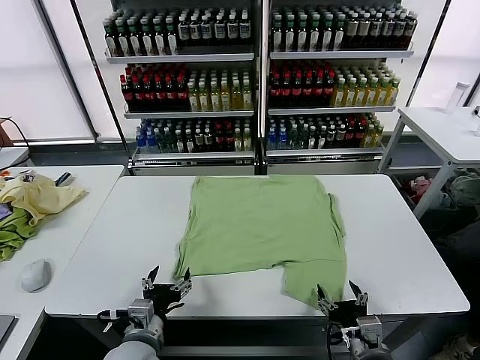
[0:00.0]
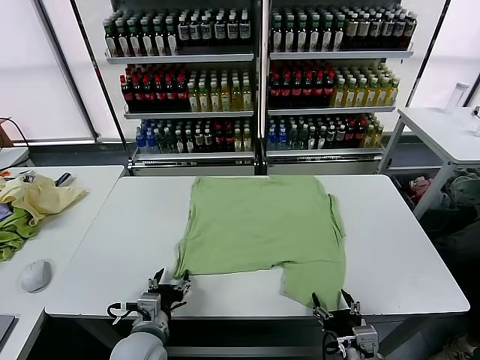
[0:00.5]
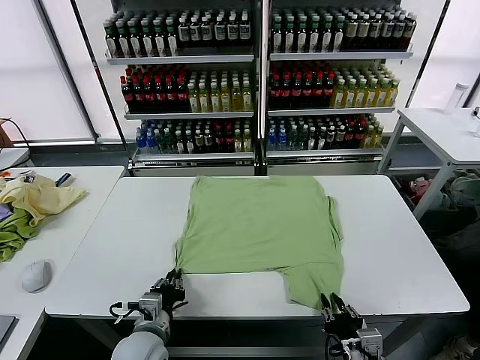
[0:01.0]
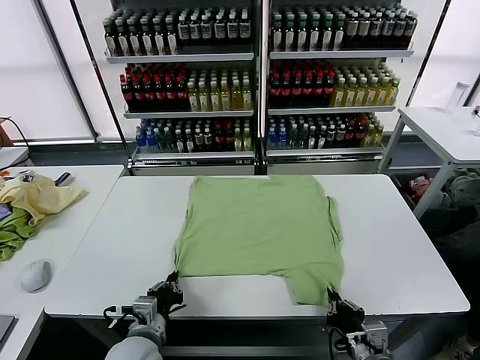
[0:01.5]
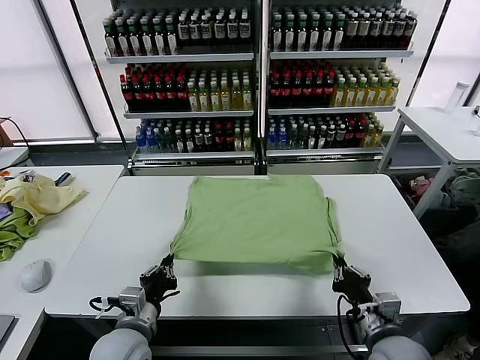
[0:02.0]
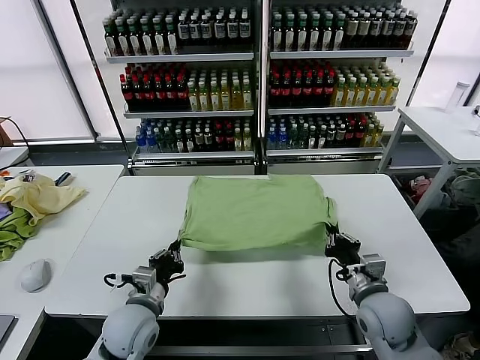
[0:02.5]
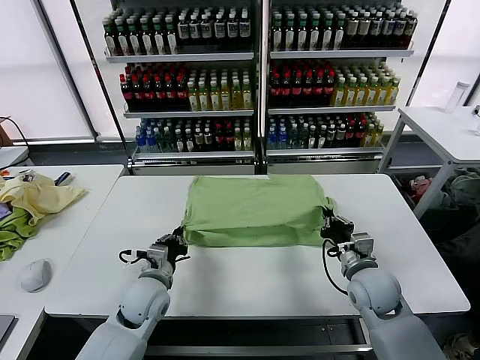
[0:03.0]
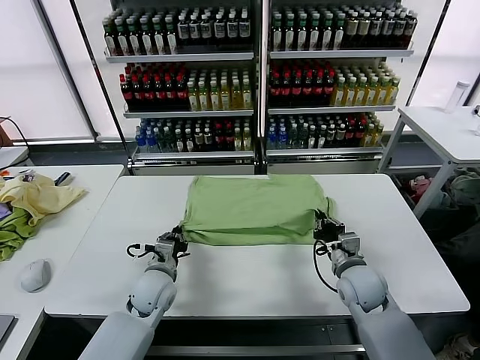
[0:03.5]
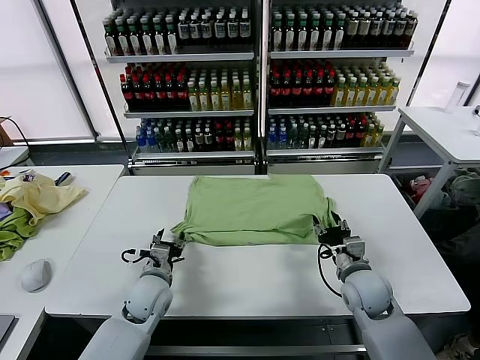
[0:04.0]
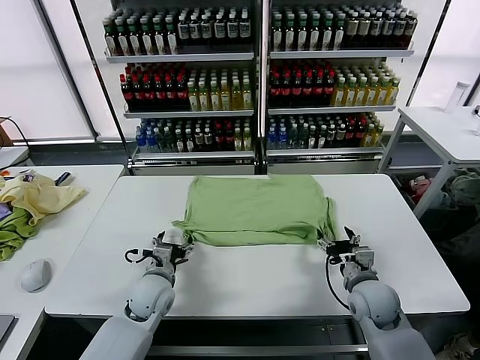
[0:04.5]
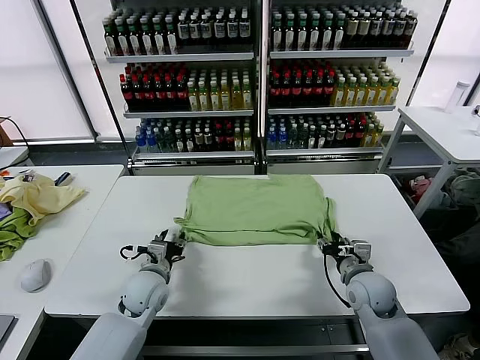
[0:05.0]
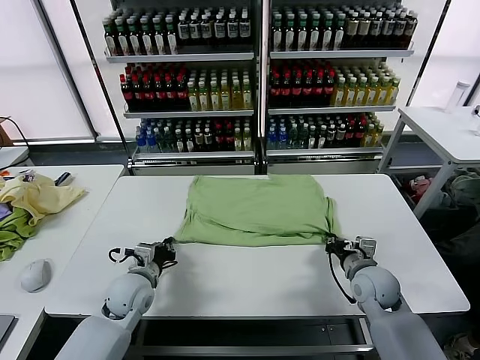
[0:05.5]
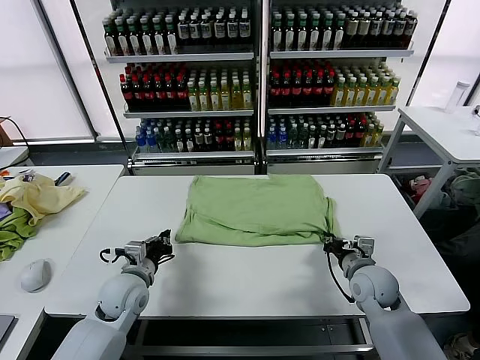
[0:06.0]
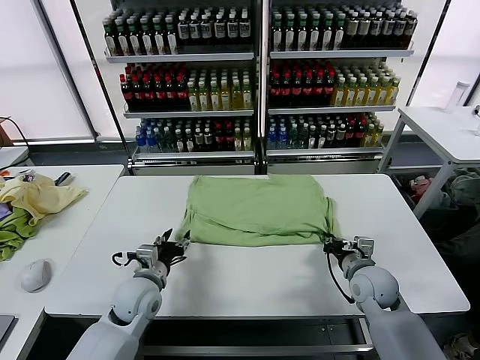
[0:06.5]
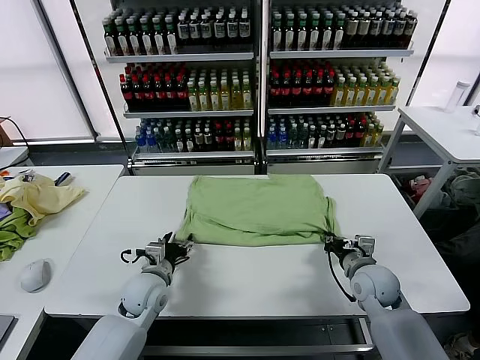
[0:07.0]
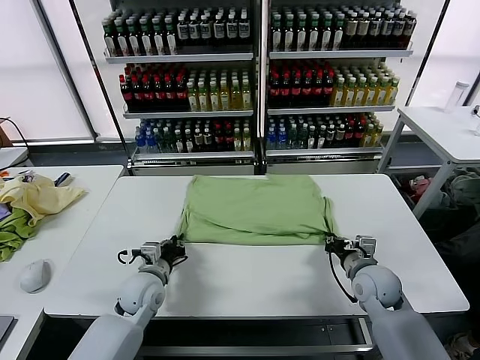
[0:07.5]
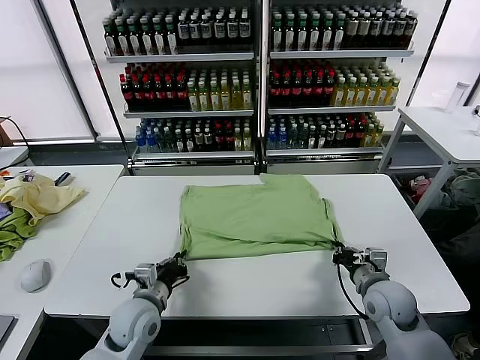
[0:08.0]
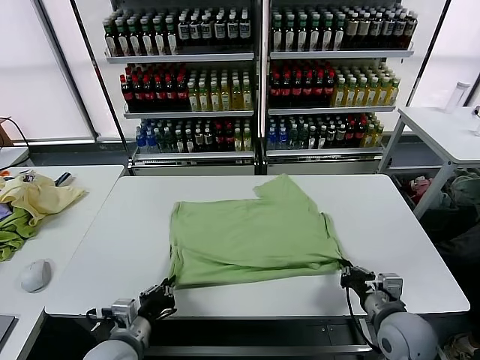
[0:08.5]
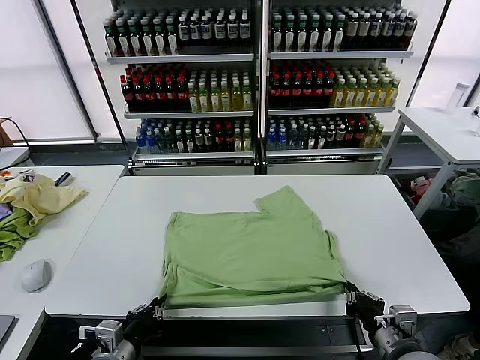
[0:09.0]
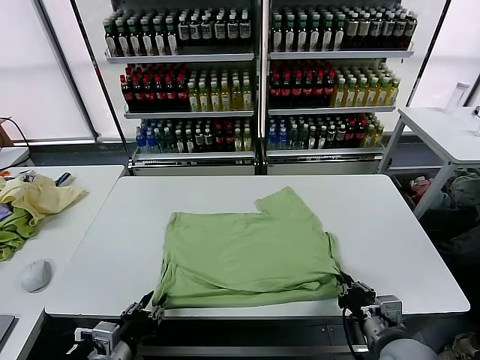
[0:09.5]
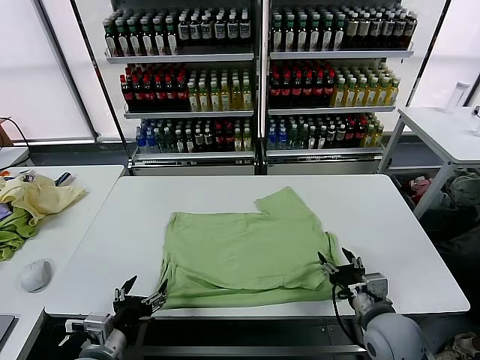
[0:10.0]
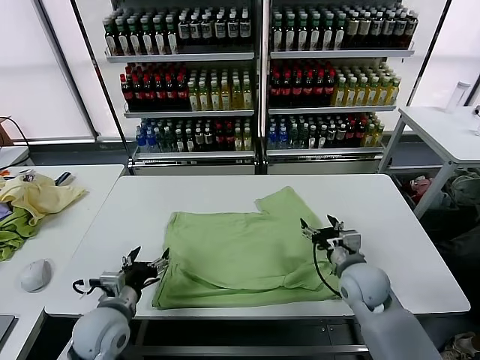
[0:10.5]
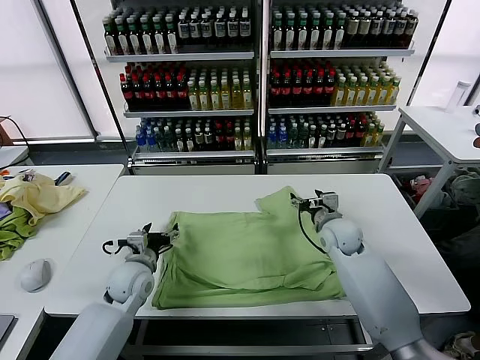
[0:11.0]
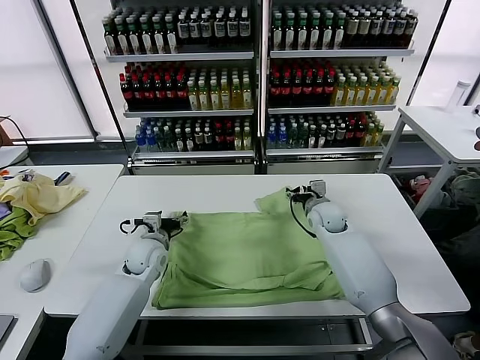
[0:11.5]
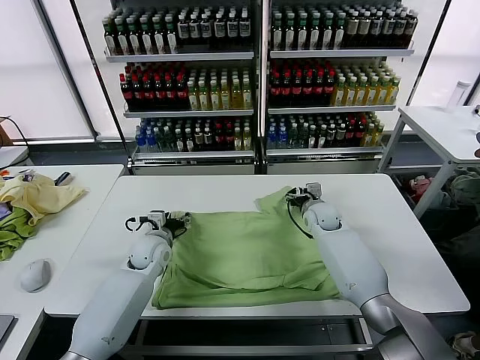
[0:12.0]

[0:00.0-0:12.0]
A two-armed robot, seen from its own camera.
Task of the whole recording: fold and organize the clothes.
Step, 0:00.0 to 0:01.0: use both grippers simultaneously to clamp the lower edge of the clothing fabric.
Step, 0:01.5 to 0:03.5: use both grippers to drag the lower edge of the fabric forward and fold it over the upper edge.
Step, 0:04.5 to 0:09.5: Drag the clothes downward with both gripper.
0:02.0 to 0:04.0: Both grippers travel together forward, about 10 cm. The right gripper opens. The left gripper opens its fingers.
0:04.0 to 0:06.0: The right gripper closes up. The left gripper shifts by about 5 cm, and closes its fingers.
0:06.0 to 0:08.0: The grippers both shift backward by some 5 cm. The left gripper opens and closes again.
0:08.0 to 0:10.0: The left gripper travels backward by roughly 15 cm, and opens its fingers; the right gripper opens.
0:10.0 to 0:12.0: The two grippers go about 30 cm forward.

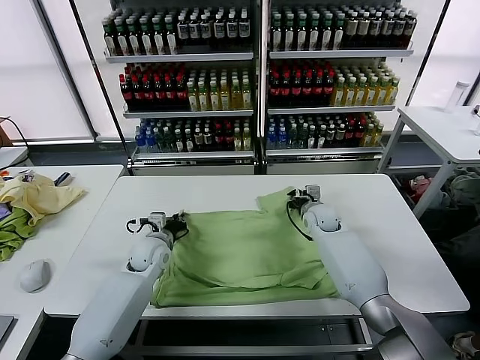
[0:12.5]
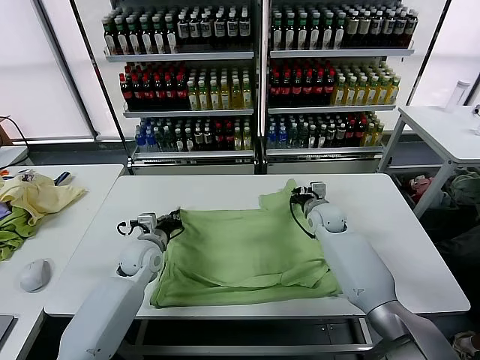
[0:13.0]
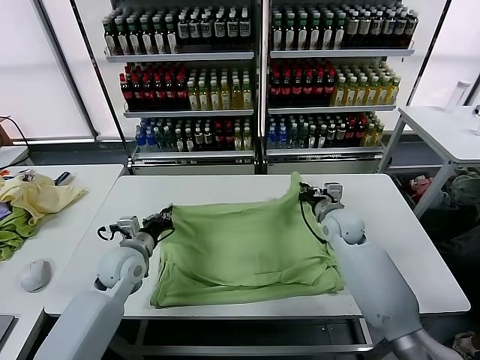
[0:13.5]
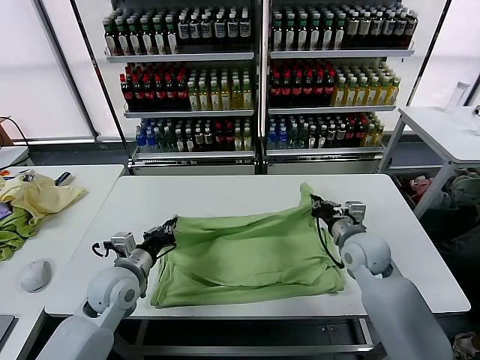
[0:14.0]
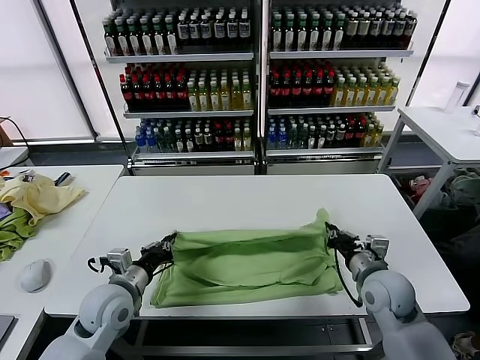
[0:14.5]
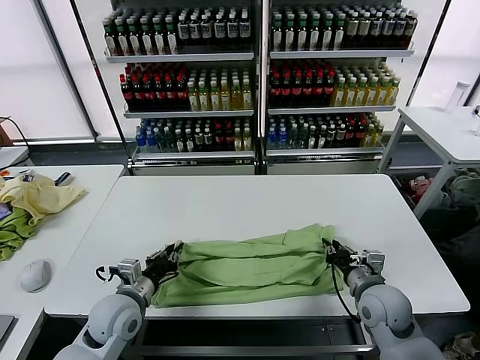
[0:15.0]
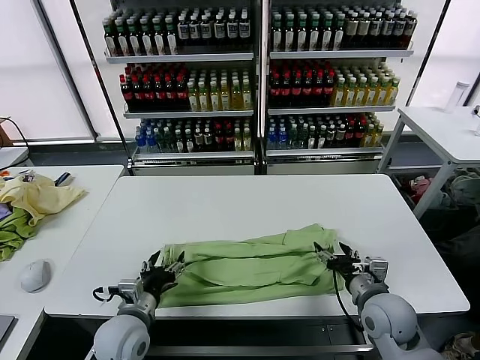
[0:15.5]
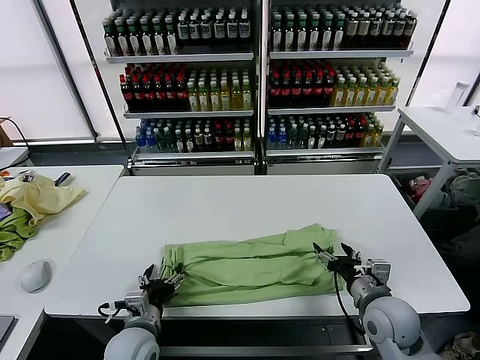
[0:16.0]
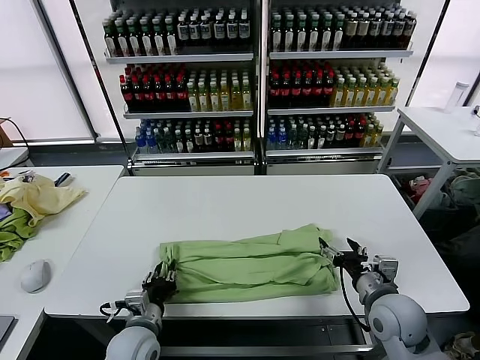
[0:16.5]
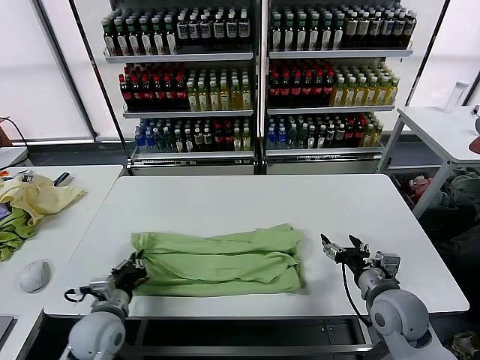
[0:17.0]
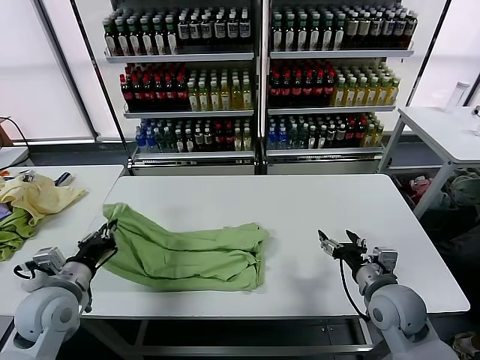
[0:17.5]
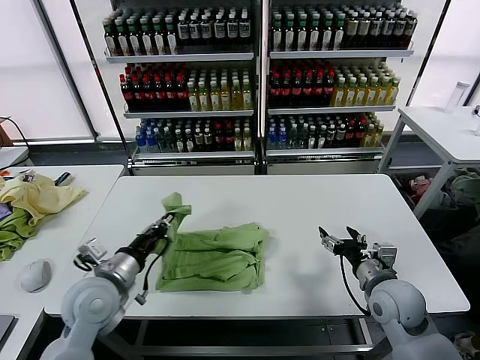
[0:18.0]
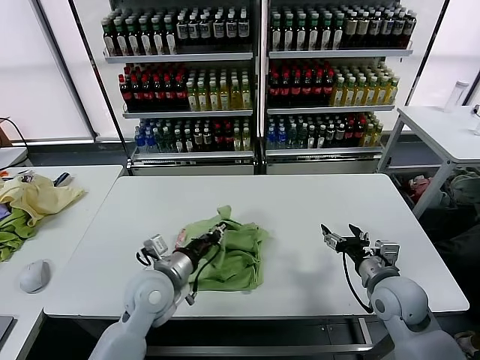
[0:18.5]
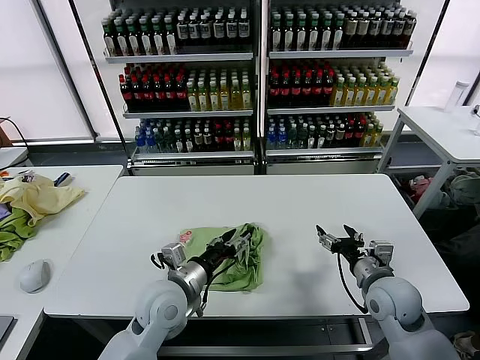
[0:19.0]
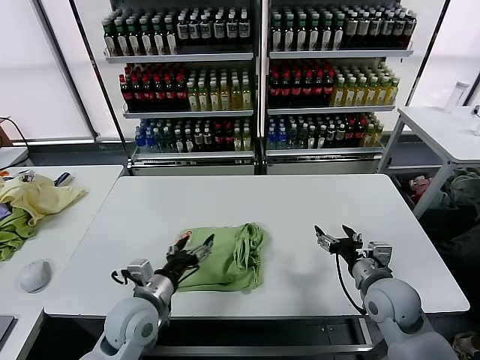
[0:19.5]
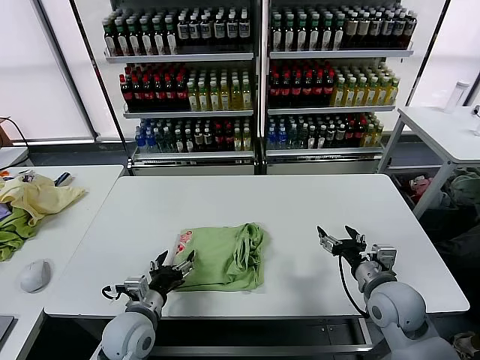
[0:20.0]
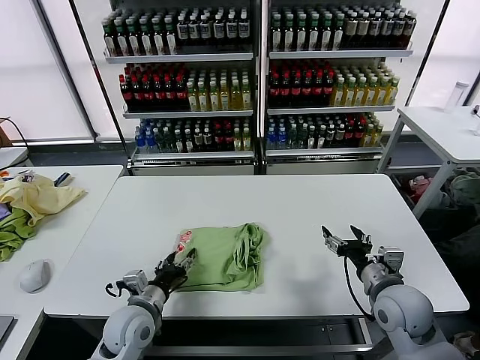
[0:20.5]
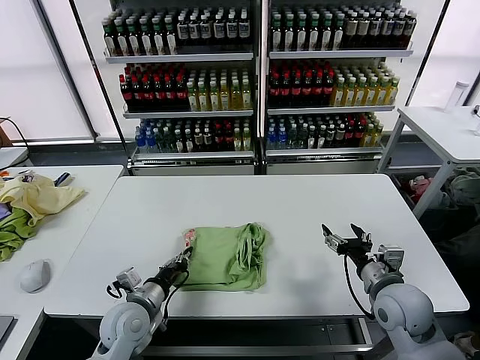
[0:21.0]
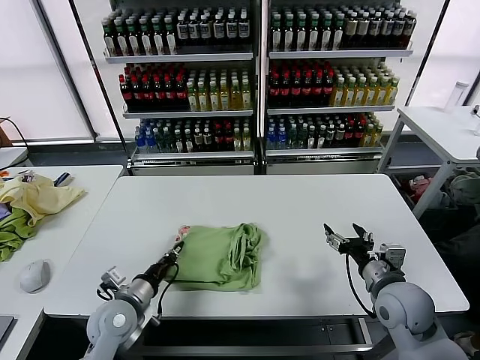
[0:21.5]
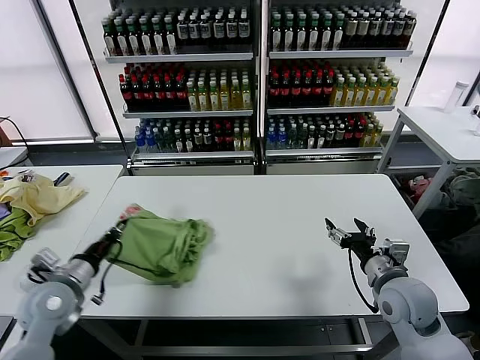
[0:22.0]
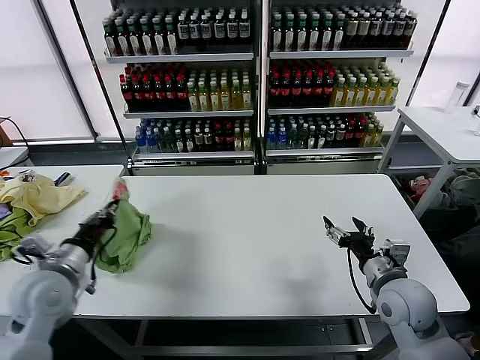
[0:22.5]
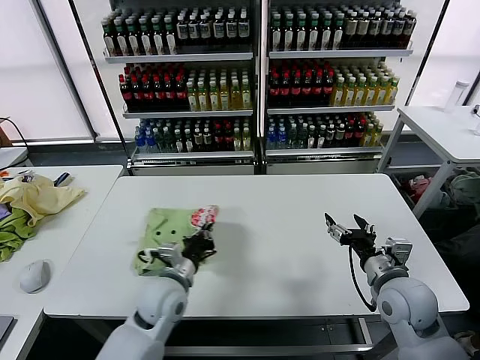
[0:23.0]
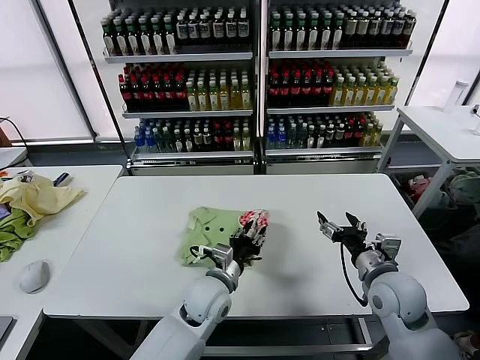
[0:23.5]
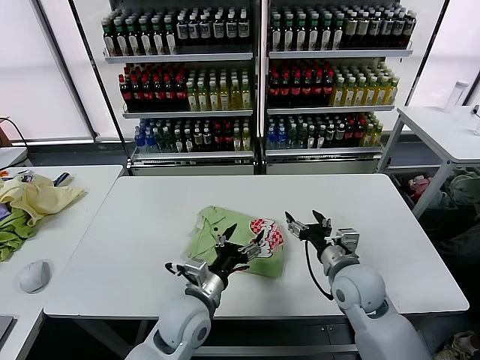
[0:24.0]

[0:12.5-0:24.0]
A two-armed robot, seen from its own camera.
Task of the whole recording: fold and organize the clothes.
Step, 0:12.5 to 0:15.0: use both grippers to drag the upper edge of the fabric backward and fold it over the lower edge.
Step, 0:15.5 to 0:16.5: use the left gripper to clamp the left edge of the fabric.
Step, 0:17.0 to 0:19.0: use the left gripper to drag the left edge of the fabric to the left and folds it over the right edge.
Step, 0:19.5 to 0:23.5: Flip the folded clothes over with left gripper.
0:12.5 to 0:14.5: The left gripper is displaced backward by approximately 15 cm; the right gripper goes about 25 cm backward.
0:14.5 to 0:16.5: The left gripper travels downward and backward by roughly 10 cm, and opens its fingers. Meanwhile the right gripper opens up.
0:16.5 to 0:18.5: The left gripper moves upward and forward, approximately 15 cm, and moves approximately 15 cm to the left and comes back.
0:18.5 to 0:20.0: The left gripper heads downward and backward, covering about 10 cm, and opens up.
0:20.0 to 0:22.0: The left gripper moves to the left and upward, roughly 15 cm, and closes up.
0:22.0 to 0:24.0: The right gripper travels to the left by some 10 cm. Meanwhile the left gripper travels to the right by approximately 25 cm, and opens.

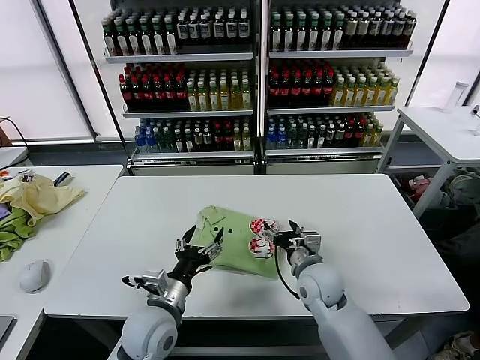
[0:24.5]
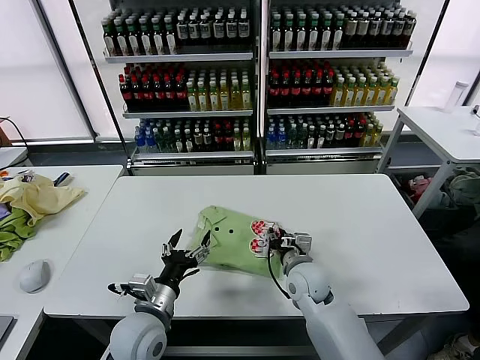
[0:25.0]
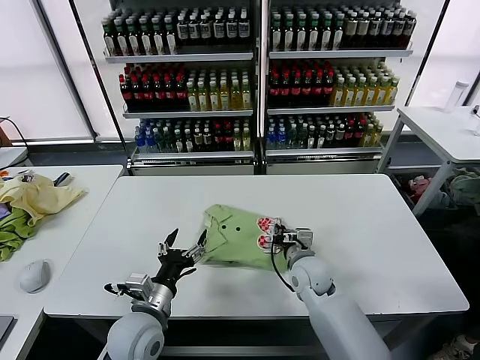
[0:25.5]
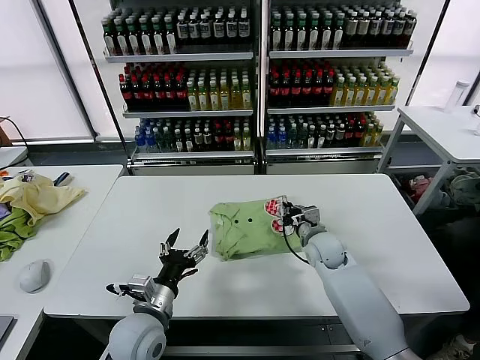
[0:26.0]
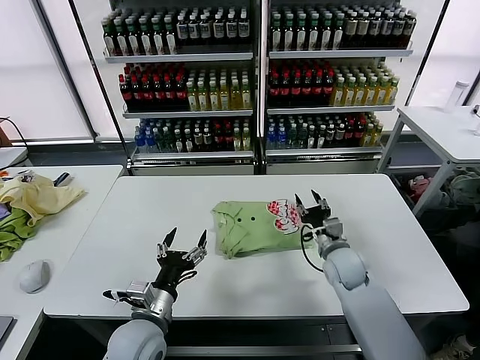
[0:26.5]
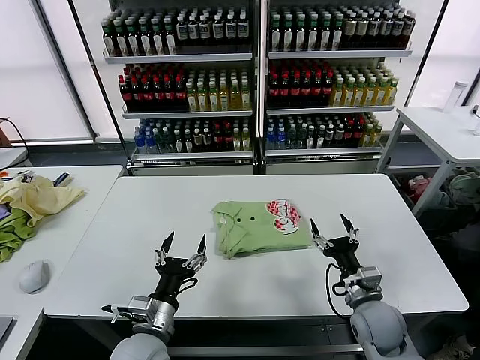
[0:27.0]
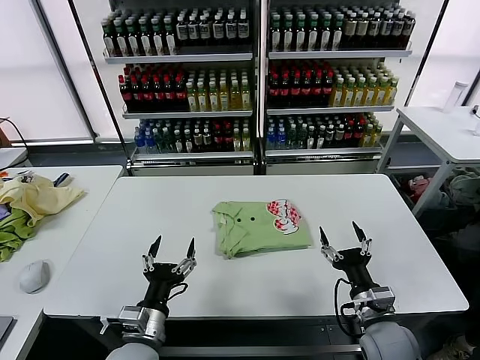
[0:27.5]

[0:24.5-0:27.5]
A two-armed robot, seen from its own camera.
Task of the whole recording: fold and organize the clothes.
Step, 0:24.5 to 0:26.0: Drag the clothes to the center of the table.
0:24.5 to 0:26.0: The right gripper shifts roughly 10 cm forward, and closes its fingers.
0:26.0 to 0:27.5: The left gripper moves roughly 5 cm. Meanwhile the right gripper moves backward, approximately 20 cm, and opens its fingers.
